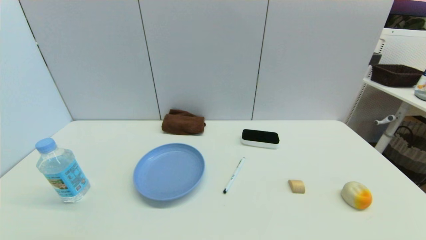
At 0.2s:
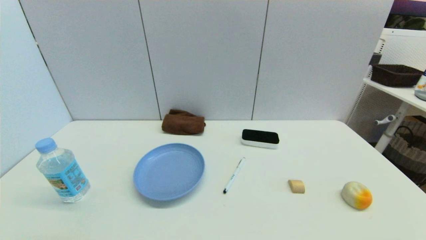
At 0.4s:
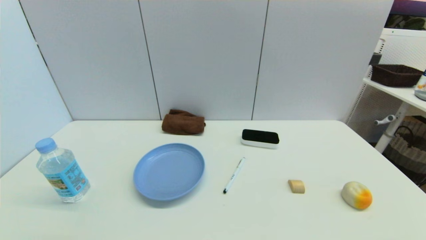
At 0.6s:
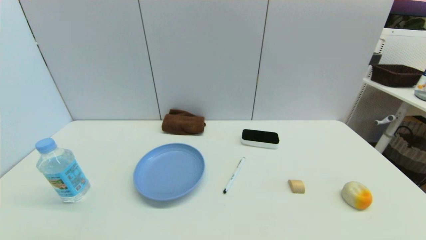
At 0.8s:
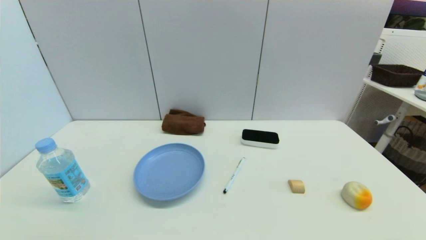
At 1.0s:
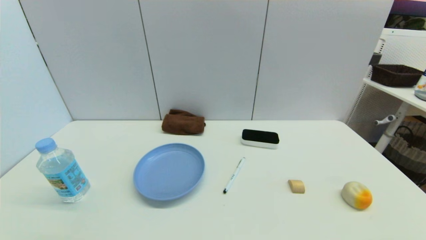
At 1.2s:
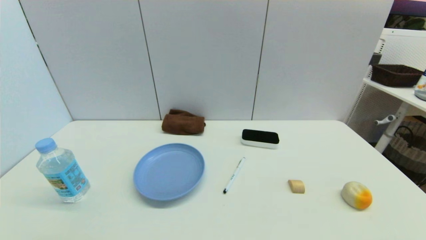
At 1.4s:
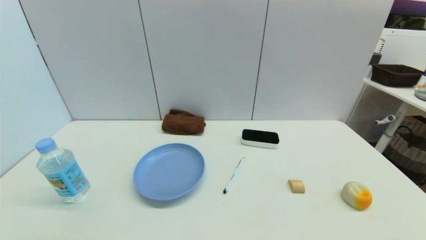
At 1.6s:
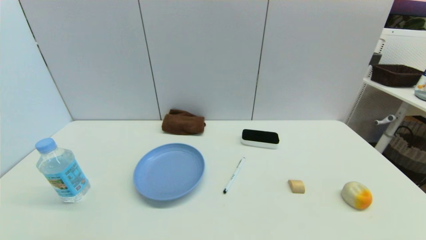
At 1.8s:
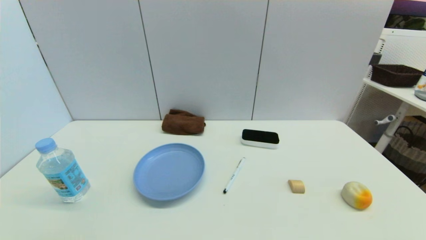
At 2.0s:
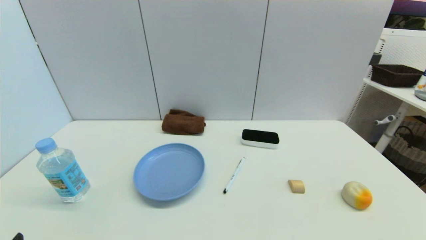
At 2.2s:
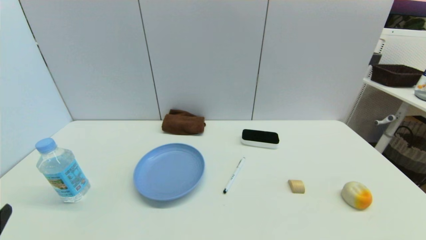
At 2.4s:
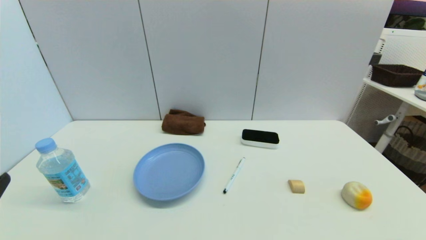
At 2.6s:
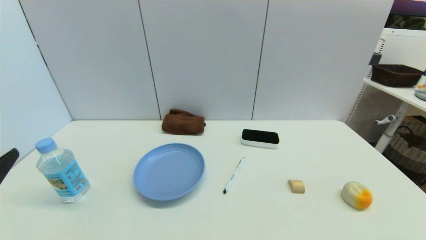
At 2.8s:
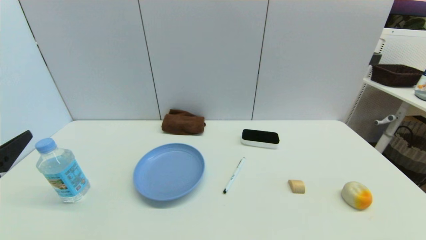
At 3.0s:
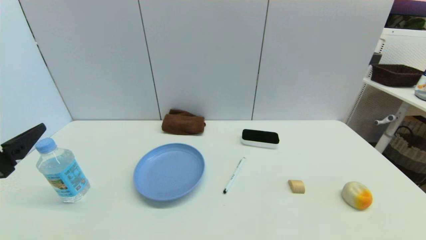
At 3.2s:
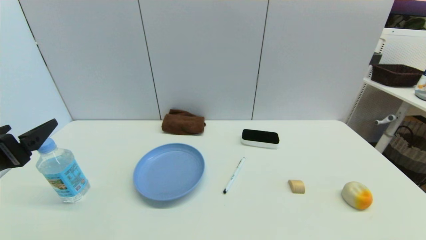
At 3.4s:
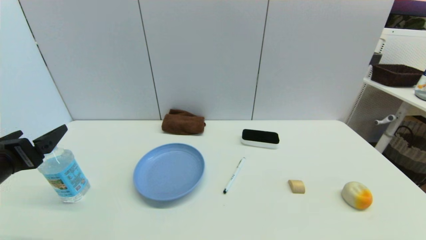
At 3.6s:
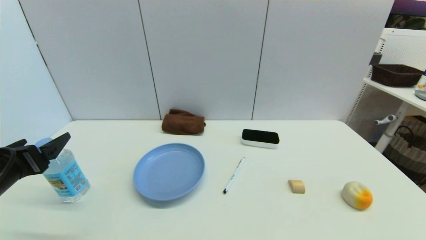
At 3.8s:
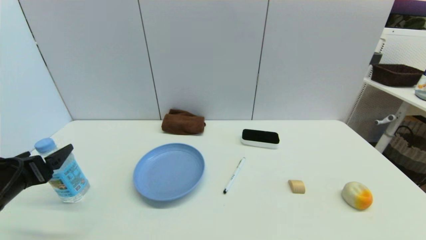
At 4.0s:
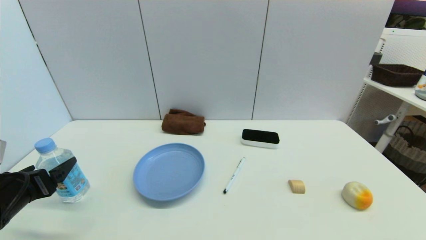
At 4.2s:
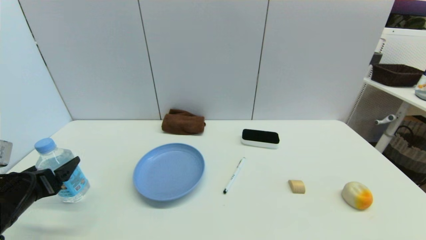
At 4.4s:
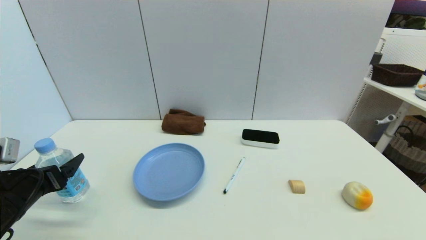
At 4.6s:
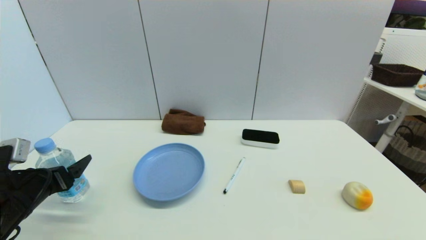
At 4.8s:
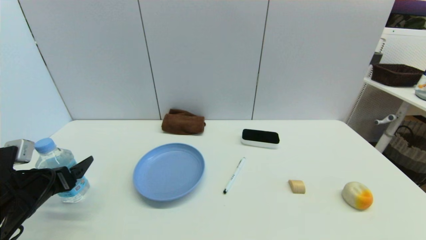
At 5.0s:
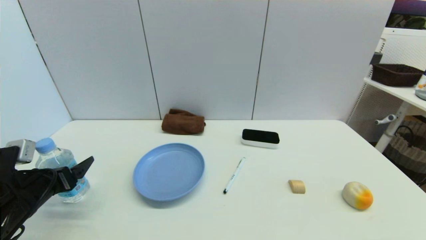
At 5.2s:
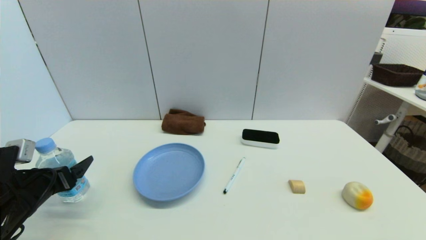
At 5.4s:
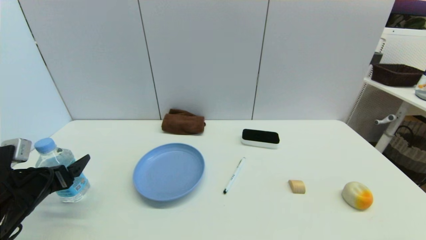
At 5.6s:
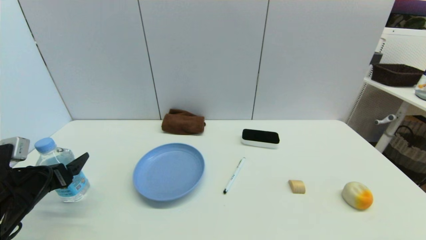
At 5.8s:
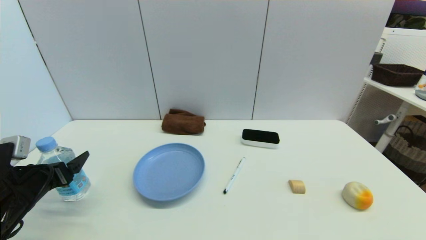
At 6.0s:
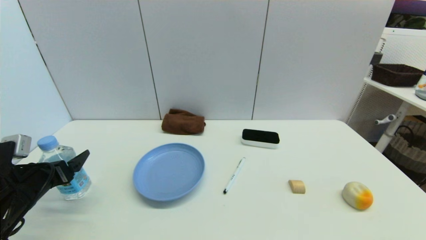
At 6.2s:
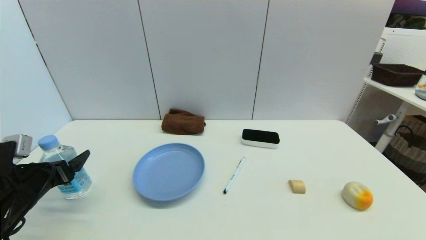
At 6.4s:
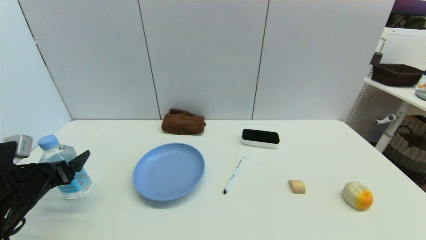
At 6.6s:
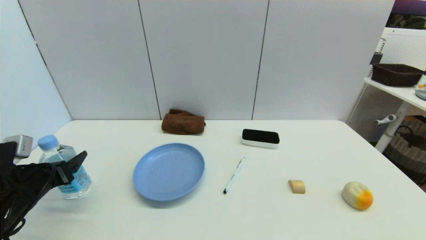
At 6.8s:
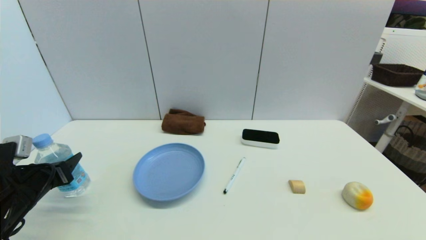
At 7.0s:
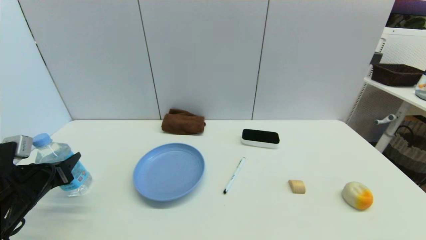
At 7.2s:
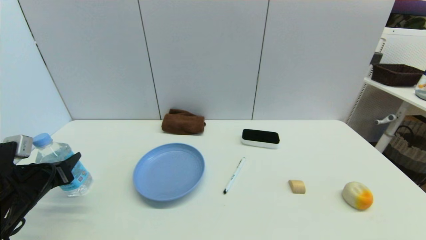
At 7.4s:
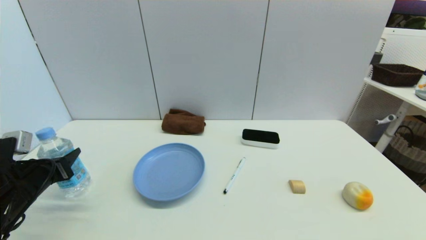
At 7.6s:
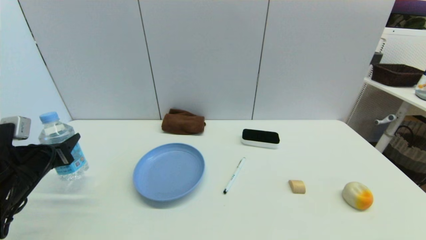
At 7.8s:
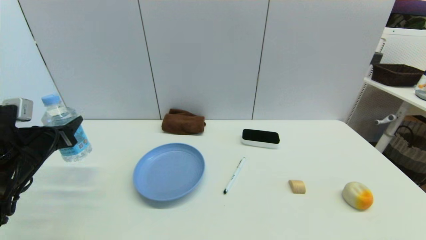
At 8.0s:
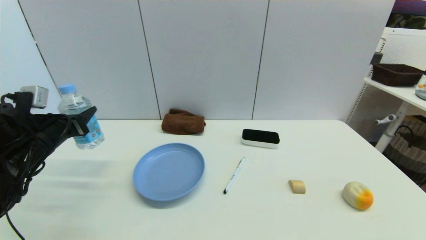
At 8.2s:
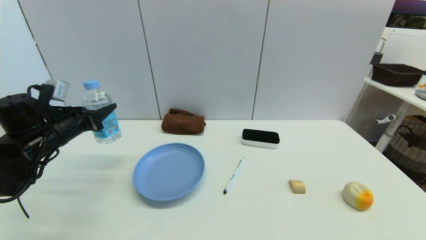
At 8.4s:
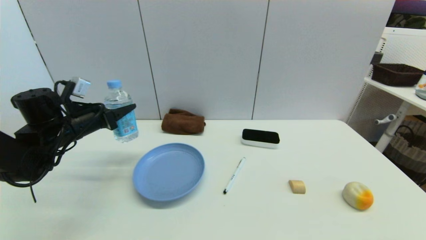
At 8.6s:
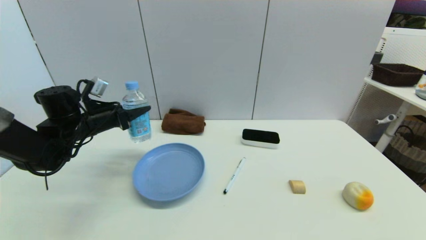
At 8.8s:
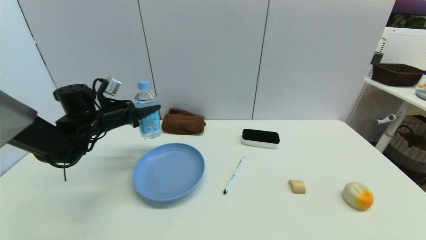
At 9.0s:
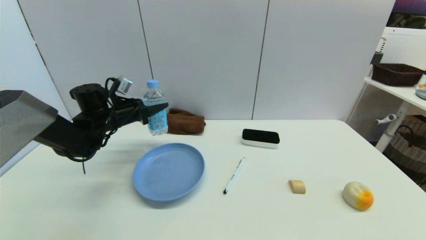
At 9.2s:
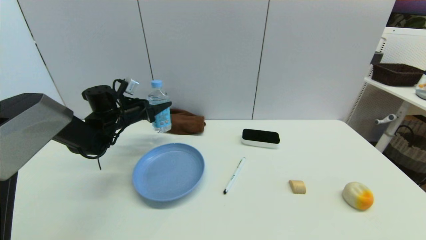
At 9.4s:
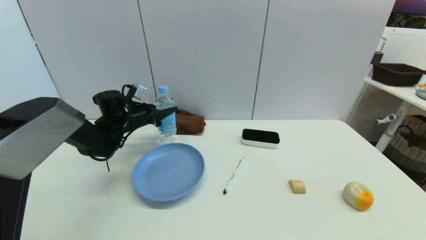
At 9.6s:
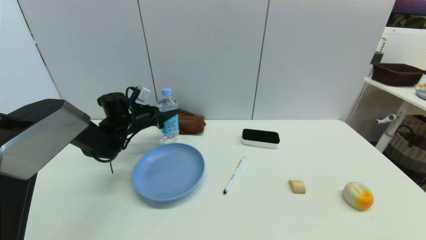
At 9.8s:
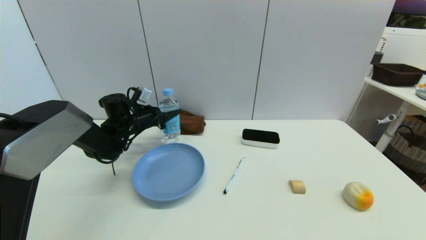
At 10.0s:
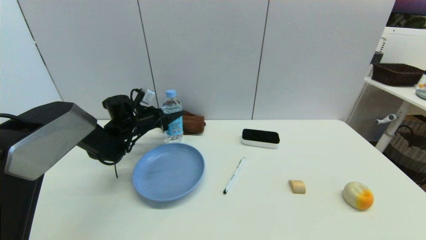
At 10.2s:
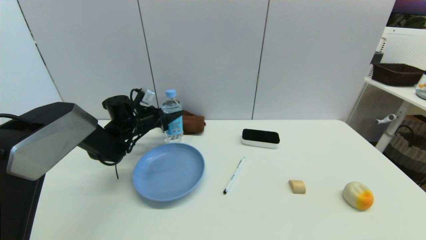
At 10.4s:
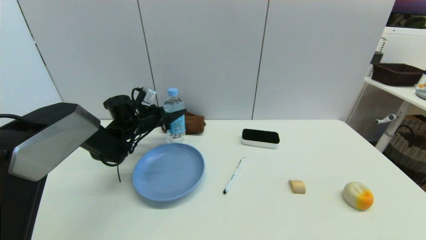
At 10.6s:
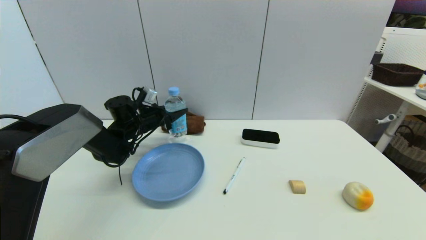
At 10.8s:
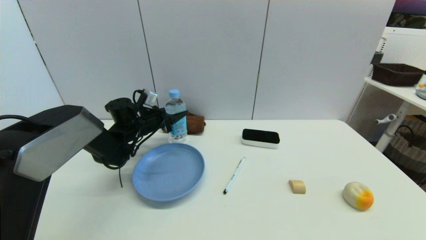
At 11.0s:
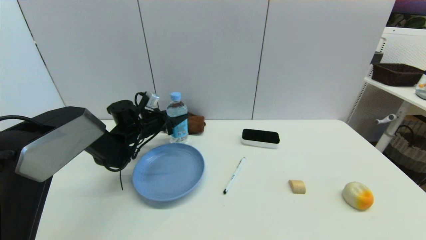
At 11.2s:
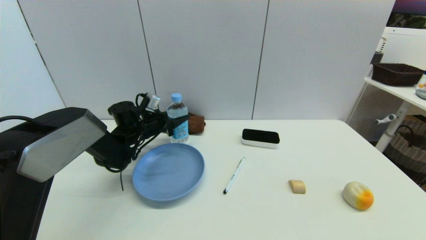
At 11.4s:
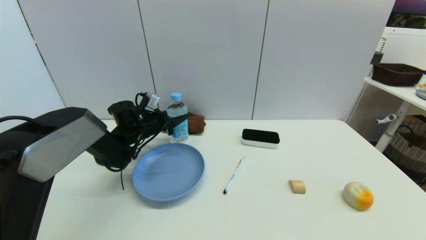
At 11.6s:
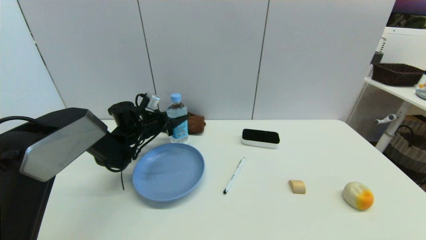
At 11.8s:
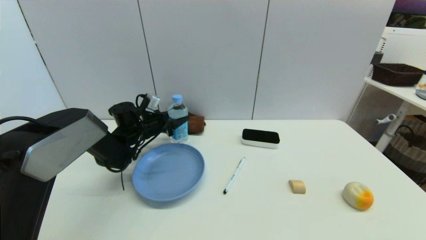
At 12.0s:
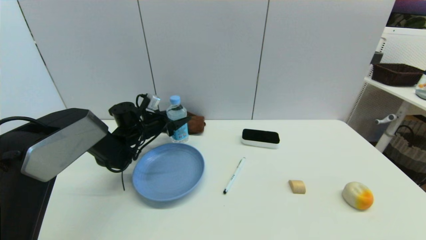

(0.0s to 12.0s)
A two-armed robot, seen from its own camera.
Step, 2.0s - 7.2s: Grasp the soda water with left gripper.
0.0s - 1.6s: Both grippers stay put.
1.6s - 3.0s: The left gripper shifts about 20 cm forward and upward.
3.0s - 4.4s: The left gripper goes roughly 10 cm downward and forward.
4.4s - 6.0s: The grippers stay close to where they were, moving slightly.
6.0s - 7.6s: The left gripper closes its fingers.
7.6s - 9.0s: The left gripper goes some 20 cm forward and to the right.
9.0s - 10.4s: The left gripper ends up some 5 cm from where it was.
10.4s - 12.0s: The left gripper opens its fingers.

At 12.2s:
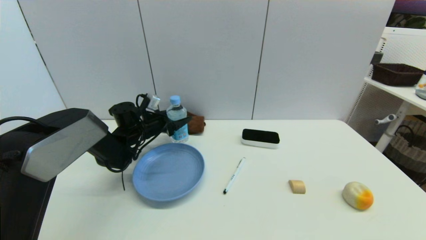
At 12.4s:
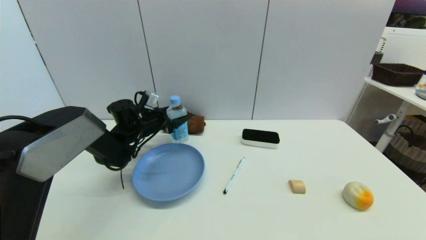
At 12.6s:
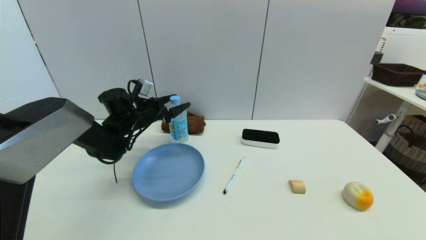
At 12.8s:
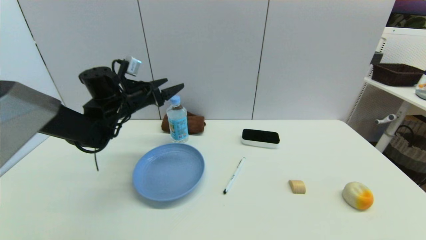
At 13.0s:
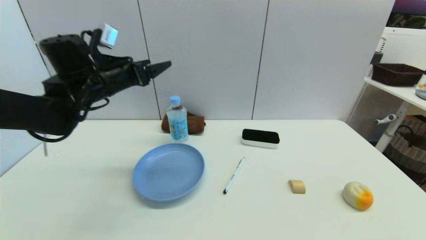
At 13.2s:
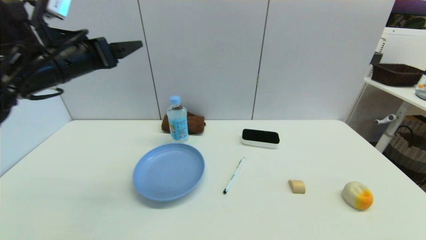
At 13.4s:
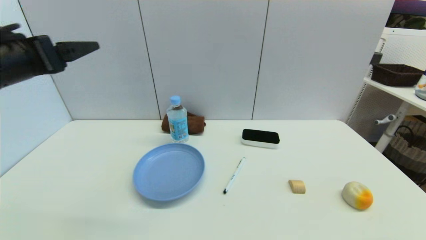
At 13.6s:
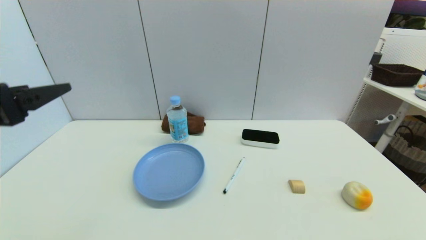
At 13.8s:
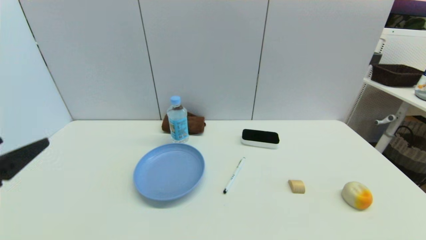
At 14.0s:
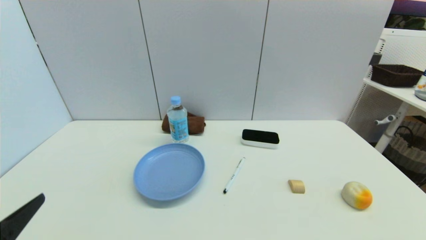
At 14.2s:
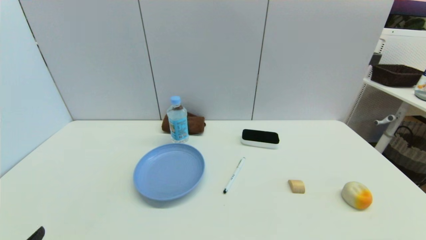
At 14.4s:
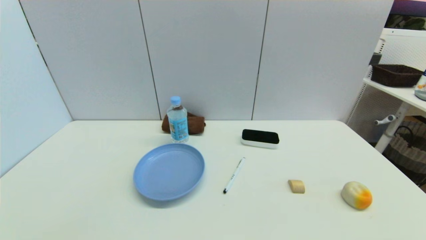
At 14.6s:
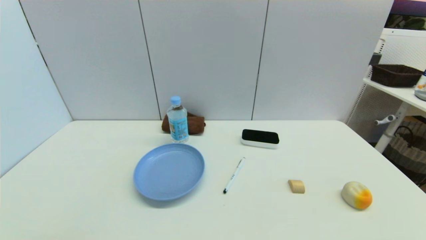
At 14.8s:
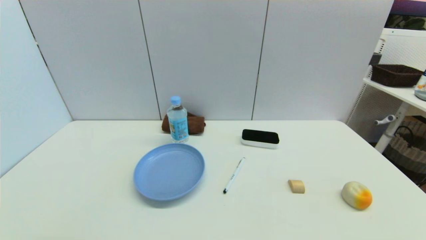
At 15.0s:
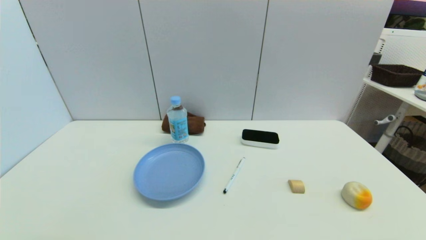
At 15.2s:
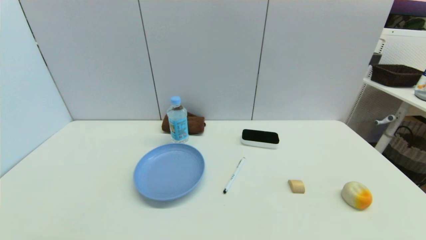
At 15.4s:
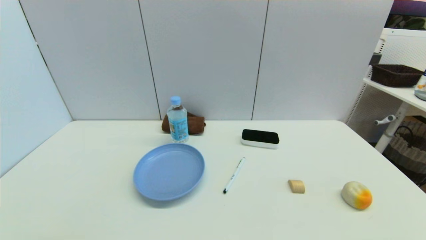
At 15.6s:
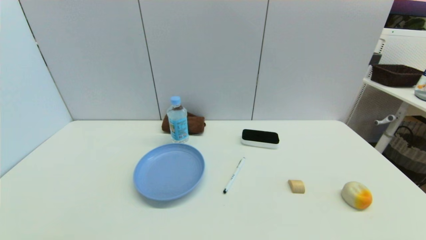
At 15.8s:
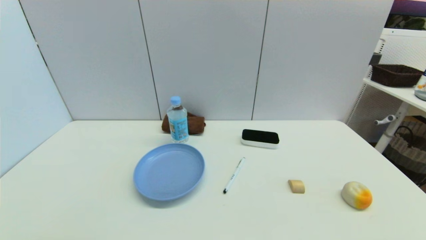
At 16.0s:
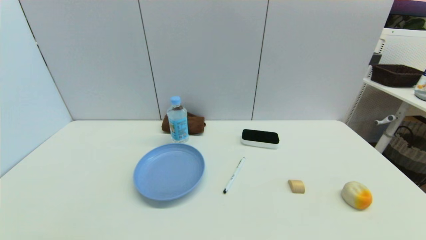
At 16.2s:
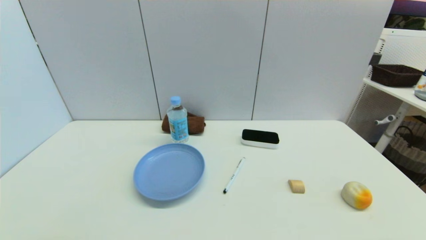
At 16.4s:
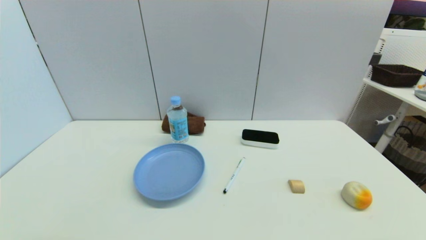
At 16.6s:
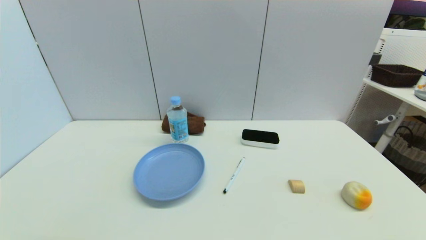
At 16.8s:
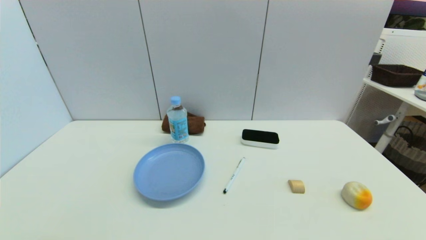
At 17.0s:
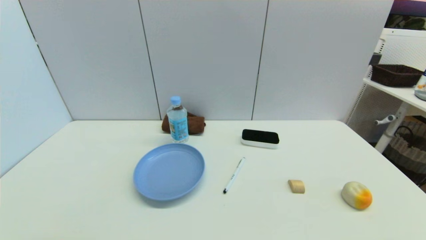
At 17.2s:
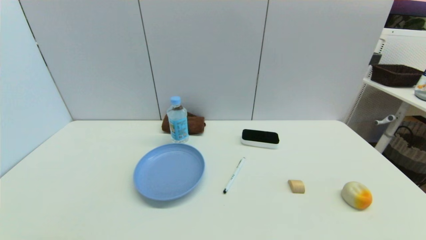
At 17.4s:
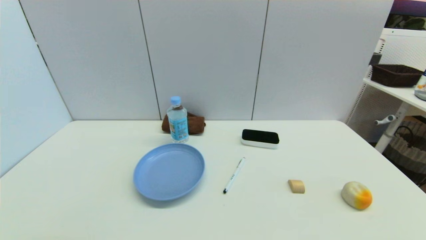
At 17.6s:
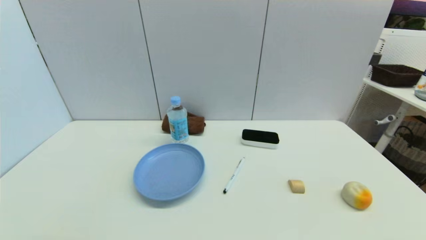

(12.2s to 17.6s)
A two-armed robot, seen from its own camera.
12.2s - 13.6s: The left gripper is displaced backward and upward by about 35 cm.
13.6s - 15.0s: The left gripper is displaced downward and backward by roughly 25 cm.
15.0s - 17.6s: The two grippers keep their place.
